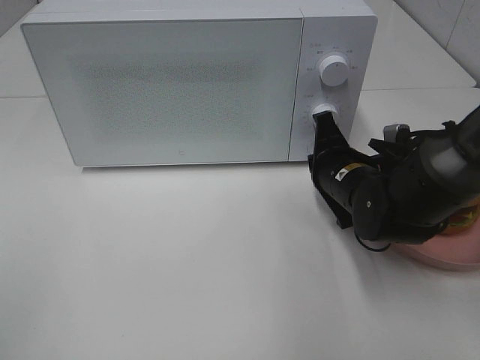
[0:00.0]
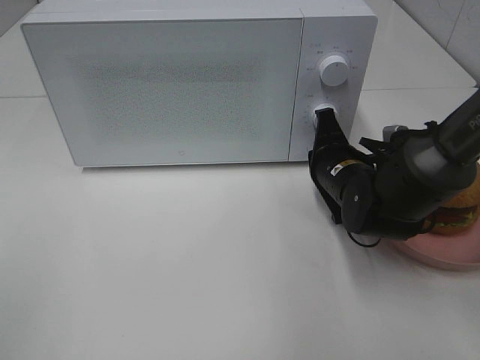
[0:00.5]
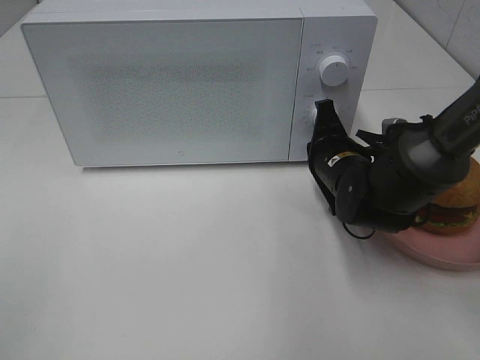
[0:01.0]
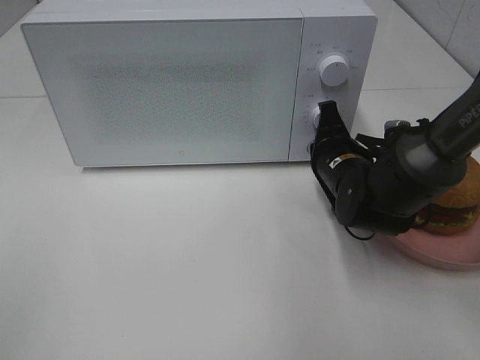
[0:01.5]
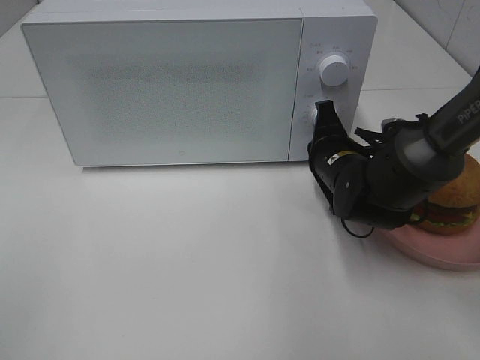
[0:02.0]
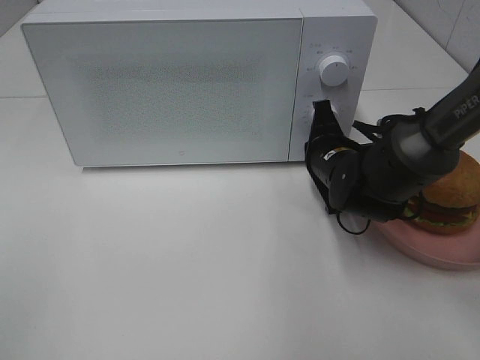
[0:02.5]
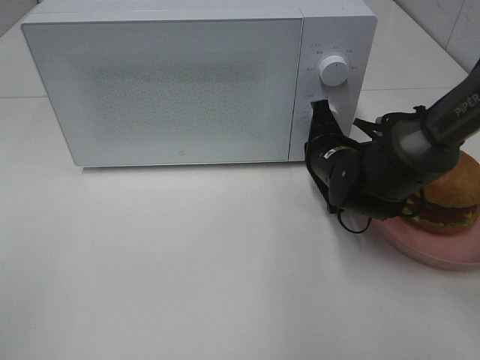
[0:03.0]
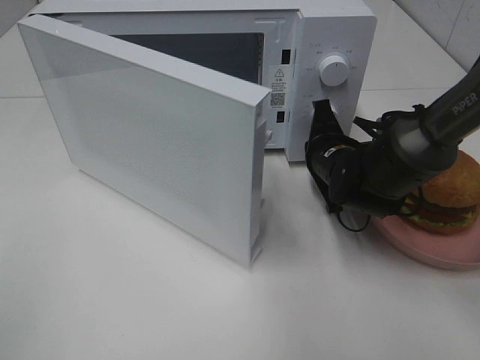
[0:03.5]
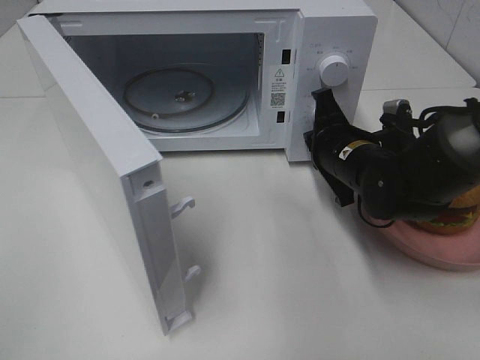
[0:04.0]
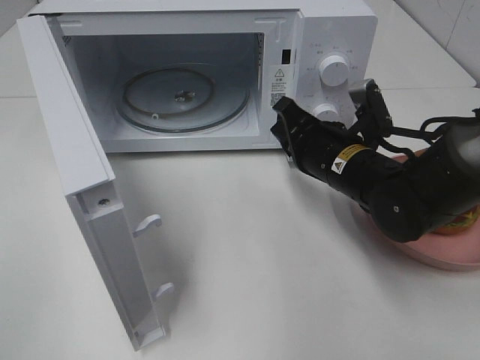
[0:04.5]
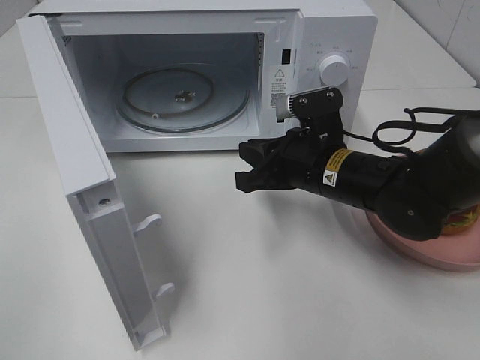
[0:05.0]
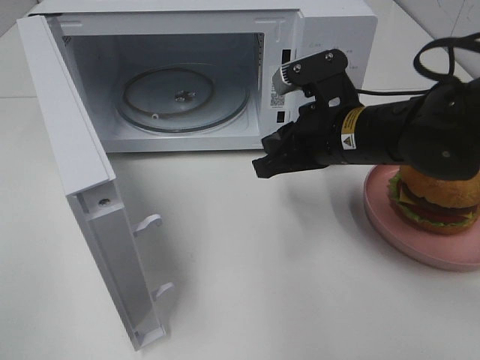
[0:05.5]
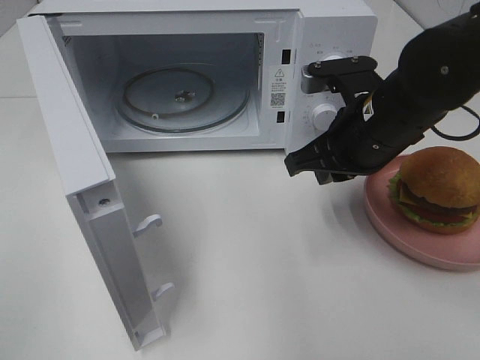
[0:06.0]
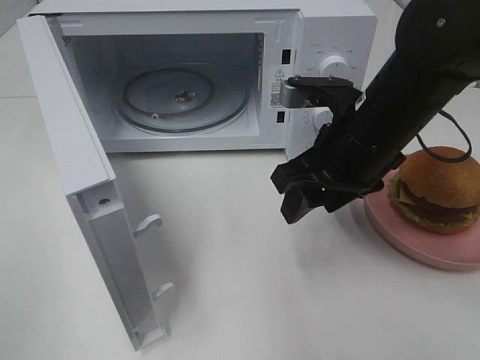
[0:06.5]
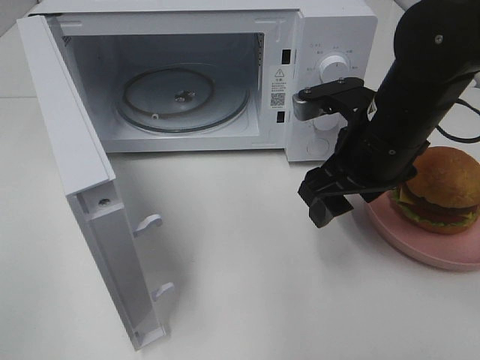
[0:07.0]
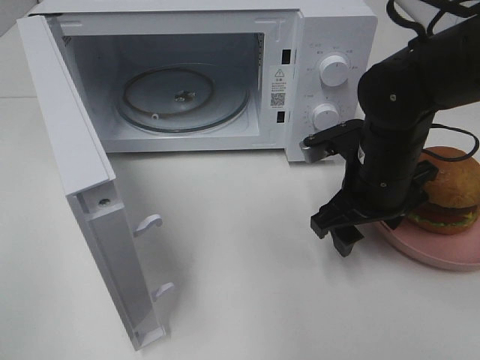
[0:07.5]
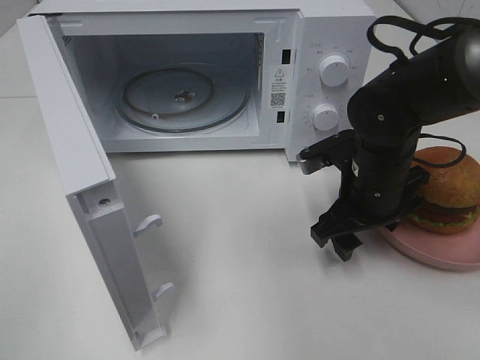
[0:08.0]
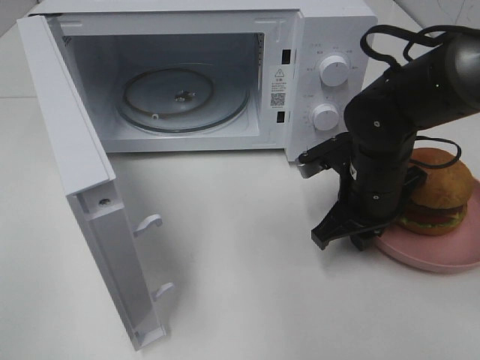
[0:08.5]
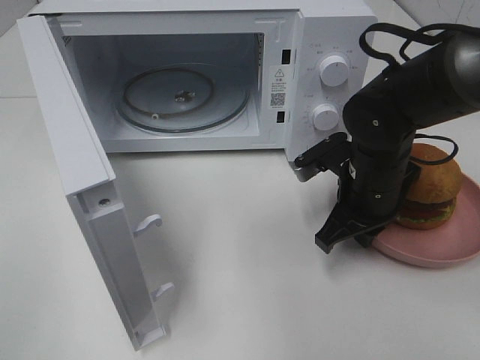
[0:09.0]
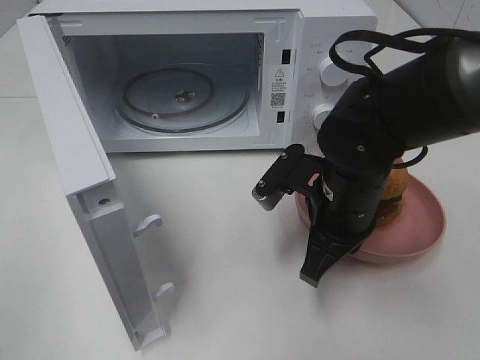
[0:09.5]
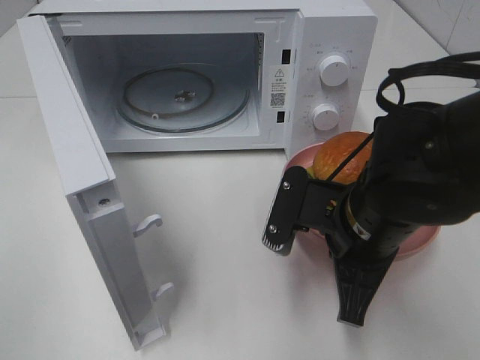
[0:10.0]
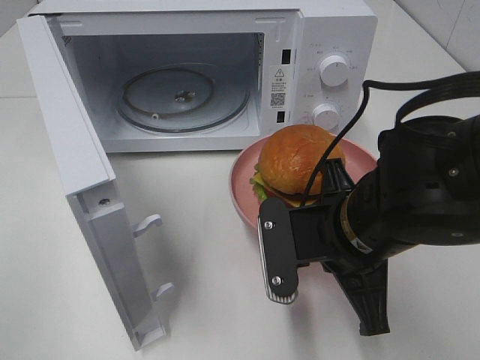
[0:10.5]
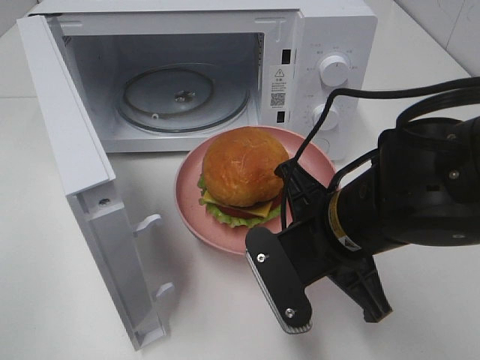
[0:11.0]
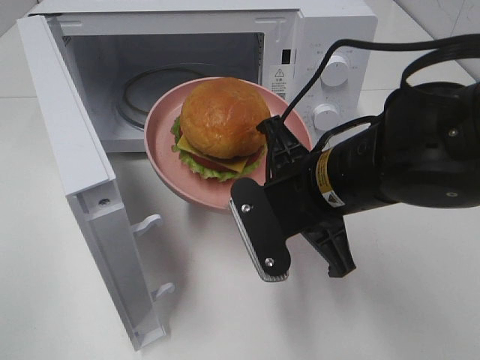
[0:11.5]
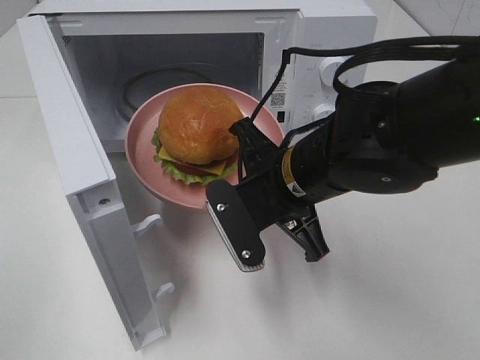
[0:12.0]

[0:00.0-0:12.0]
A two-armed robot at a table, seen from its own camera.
Task of the whole recording: Heat the burger.
Step, 0:00.0 to 0:03.5: Right hand: press the switch.
Step, 0:04.0 to 0:08.5: Right hand: grab the plate with the hamburger.
0:00.0 to 0:02.0: The grippers stay close to where they were, moving slightly.
0:04.0 to 0:06.0: The right gripper moves upward, some 10 cm.
0:06.0 to 0:08.0: The right gripper heads downward, covering about 5 cm, and opens.
0:08.0 to 0:10.0: The right gripper goes approximately 10 cm backward, and closes up.
0:10.0 to 0:12.0: The right gripper goes about 5 cm to the left.

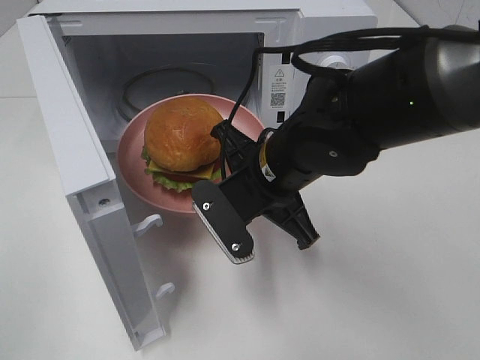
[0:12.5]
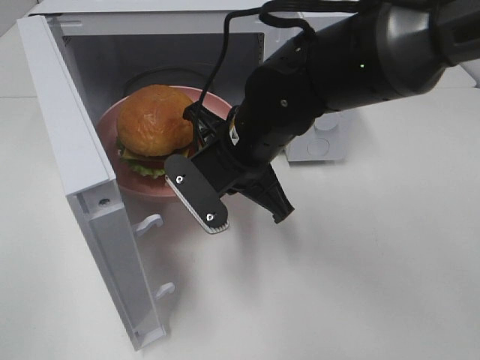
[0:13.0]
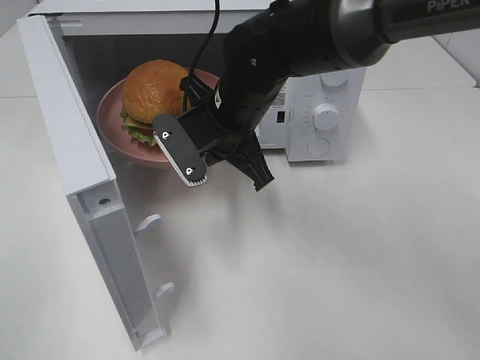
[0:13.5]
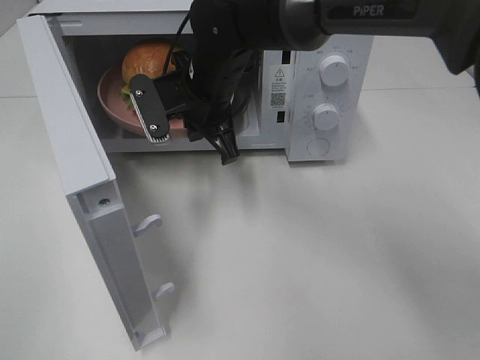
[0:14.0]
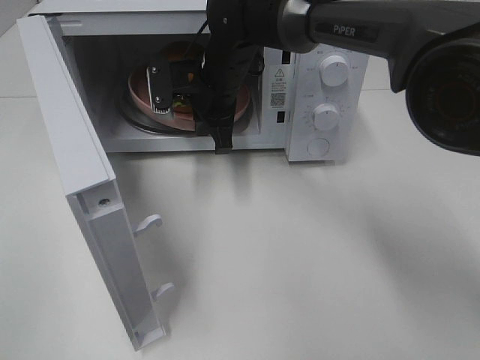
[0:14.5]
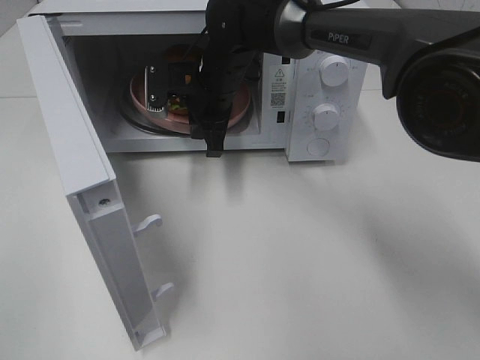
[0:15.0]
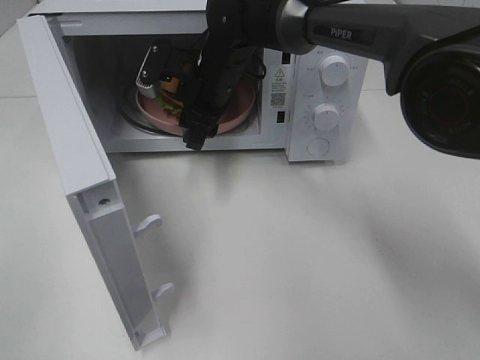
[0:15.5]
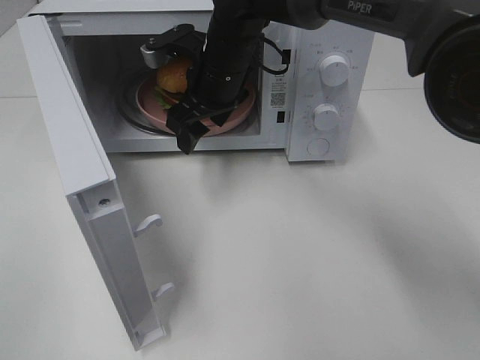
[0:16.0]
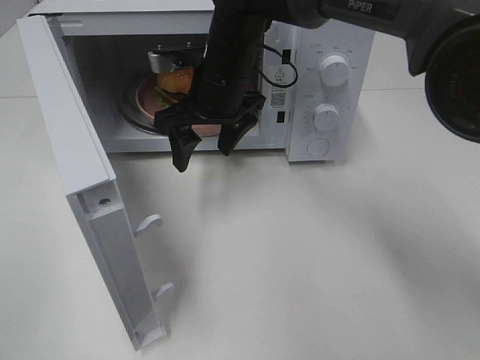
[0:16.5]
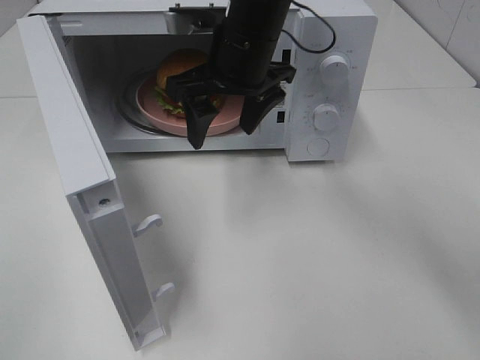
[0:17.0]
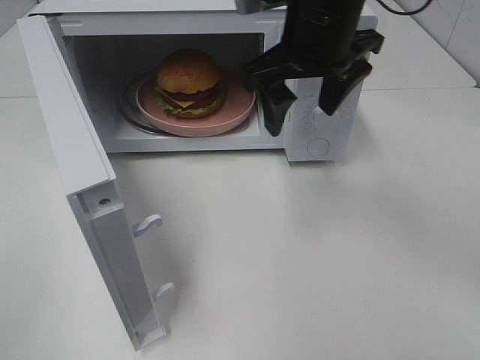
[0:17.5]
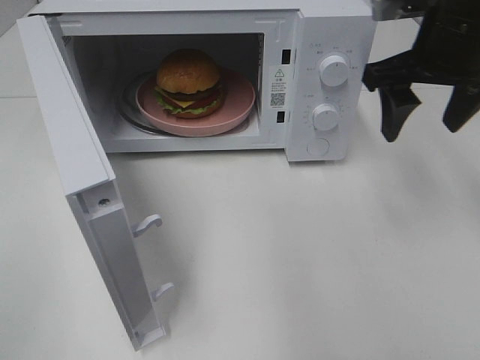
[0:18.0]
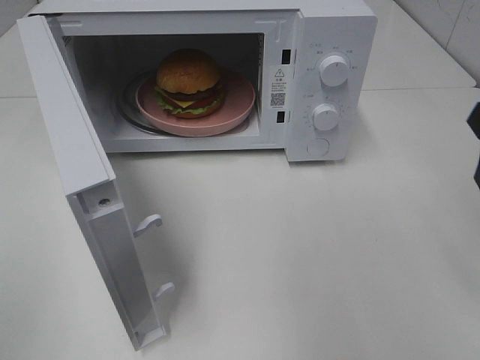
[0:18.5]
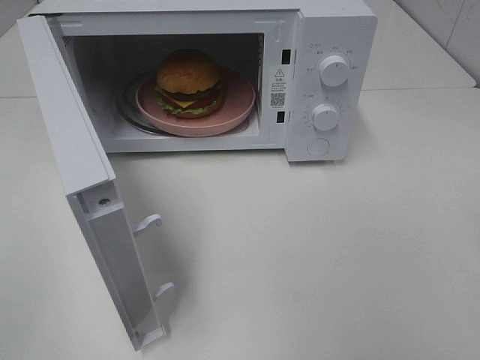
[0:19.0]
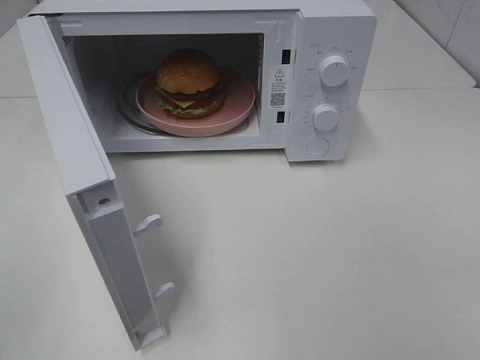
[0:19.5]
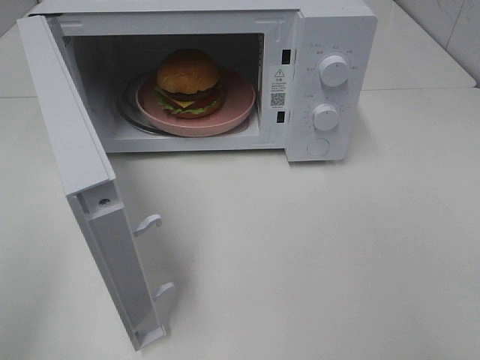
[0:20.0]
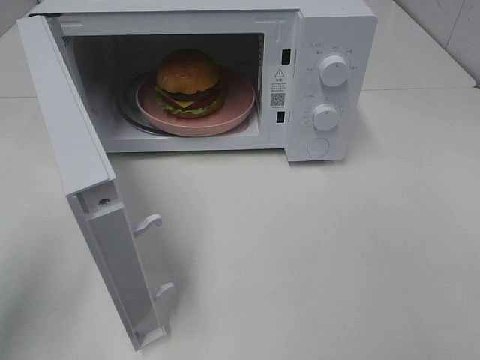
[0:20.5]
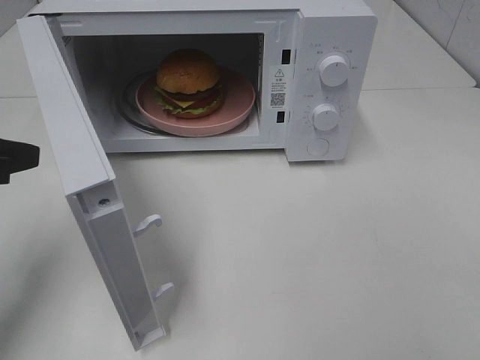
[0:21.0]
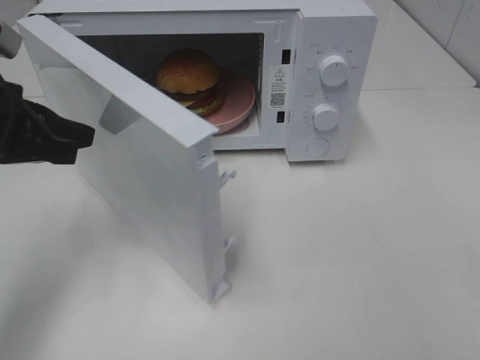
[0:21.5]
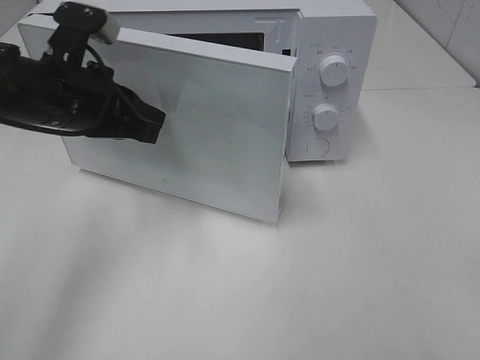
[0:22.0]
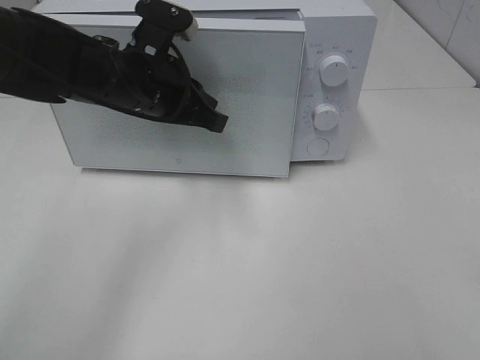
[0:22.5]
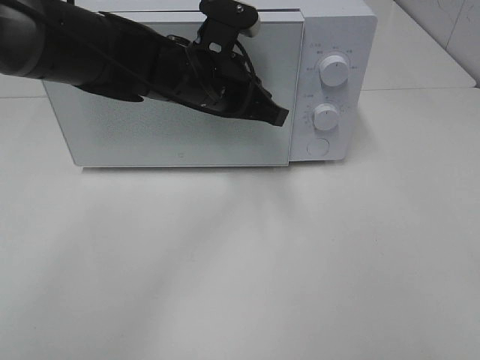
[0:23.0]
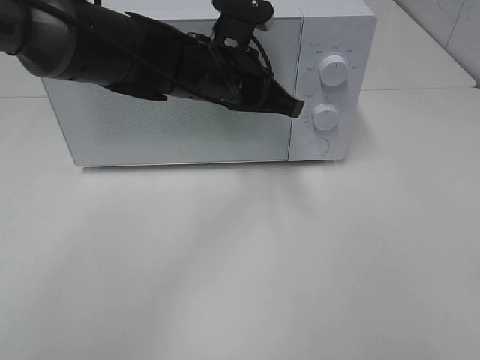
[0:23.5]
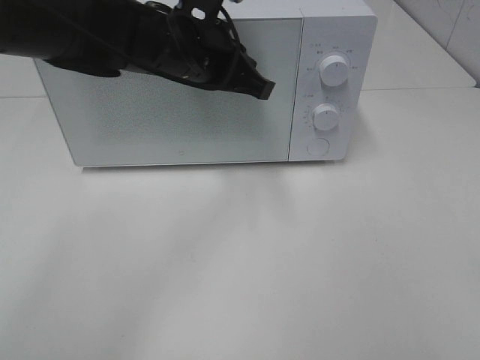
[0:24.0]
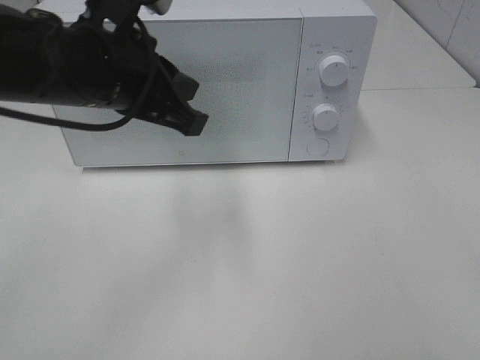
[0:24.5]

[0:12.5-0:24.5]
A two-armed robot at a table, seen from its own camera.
Task of the whole recording: Heat the burger.
Step, 0:12.5 to 0:15.0: Right hand: place the plate in the microwave.
Step, 0:15.5 to 0:23.5: Left hand: close the microwave door.
0:12.5 to 0:14.5: The right gripper travels forward by approximately 15 cm.
0:14.5 to 0:16.5: The right gripper opens up.
0:16.5 to 0:18.5: The right gripper is displaced to the right and backward by some 30 cm.
0:18.5 to 0:20.5: The left gripper shifts roughly 15 cm forward.
0:20.5 to 0:22.5: The left gripper travels to the right and forward by about 25 cm.
0:22.5 to 0:24.5: The left gripper travels backward and upward by some 10 cm, and goes to the right and returns, some 5 cm each way.

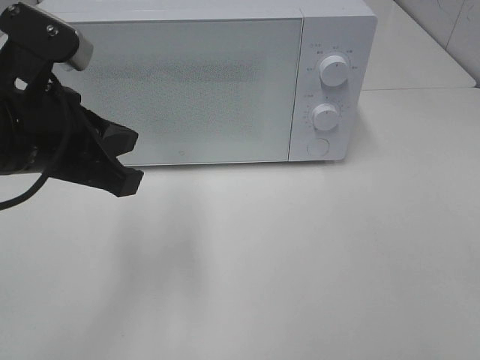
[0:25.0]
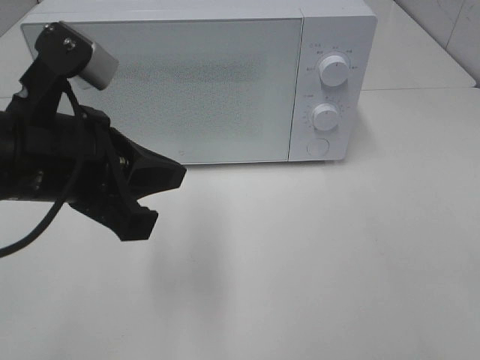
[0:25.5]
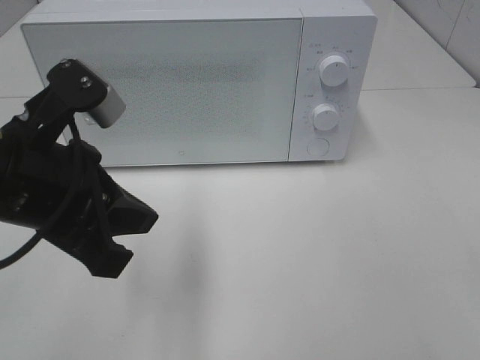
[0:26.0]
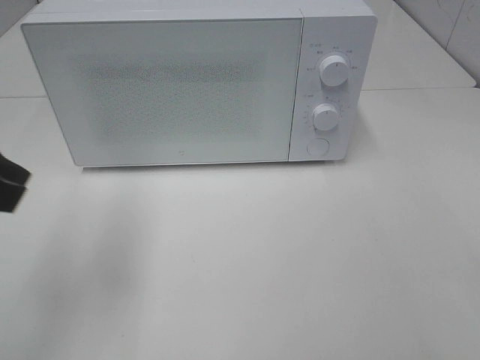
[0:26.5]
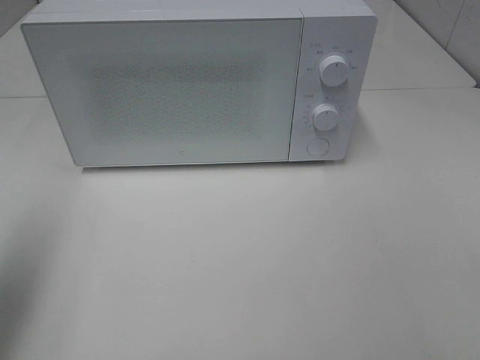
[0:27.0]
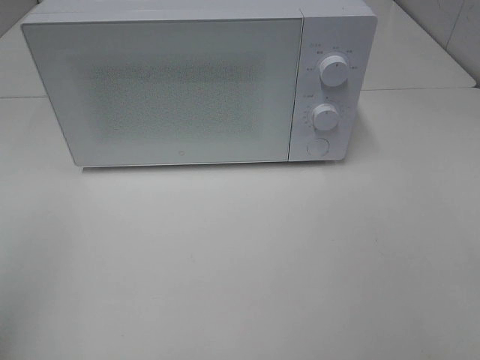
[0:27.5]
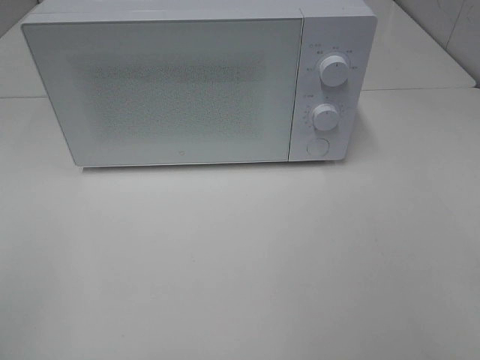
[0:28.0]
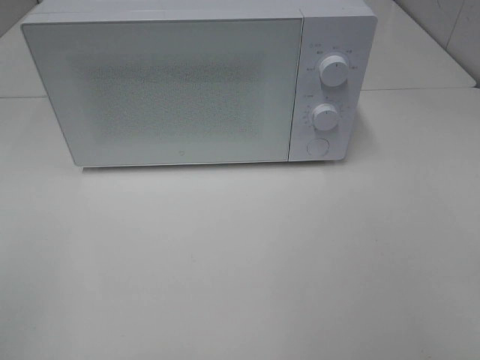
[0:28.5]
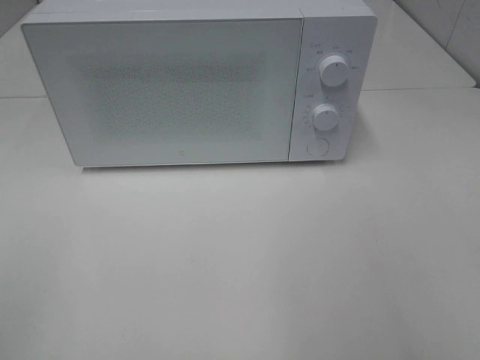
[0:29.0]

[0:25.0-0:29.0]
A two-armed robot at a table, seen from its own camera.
Task of the whole recording: Heat the burger.
0:25.0 to 0:27.0: The left gripper is displaced to the left and upward by about 15 cm.
0:27.0 to 0:29.0: The left gripper shifts approximately 15 cm backward.
